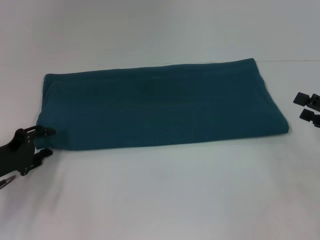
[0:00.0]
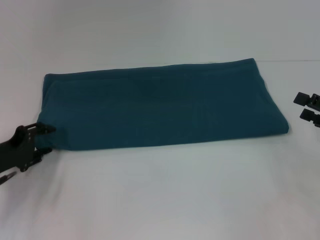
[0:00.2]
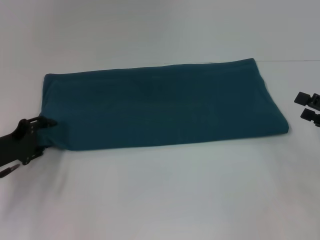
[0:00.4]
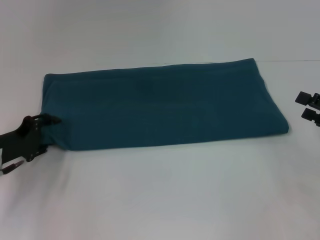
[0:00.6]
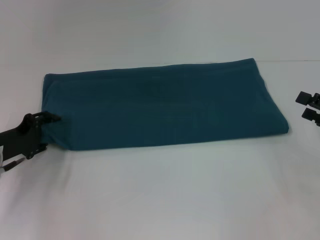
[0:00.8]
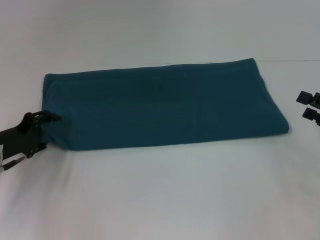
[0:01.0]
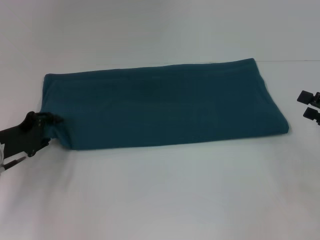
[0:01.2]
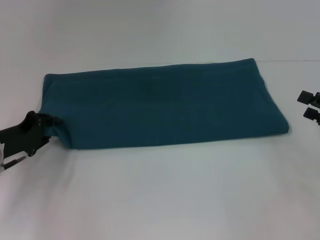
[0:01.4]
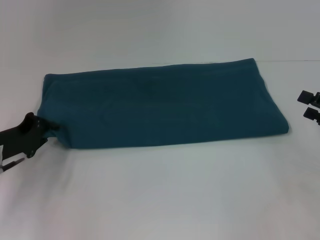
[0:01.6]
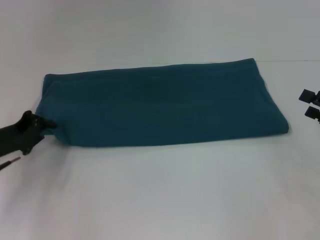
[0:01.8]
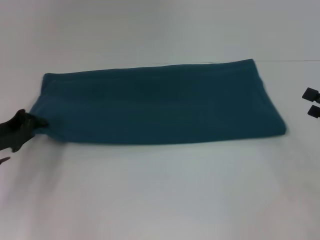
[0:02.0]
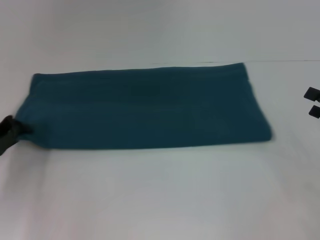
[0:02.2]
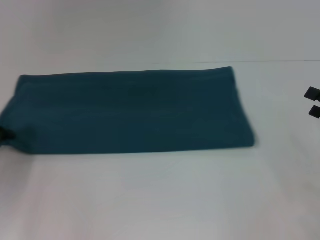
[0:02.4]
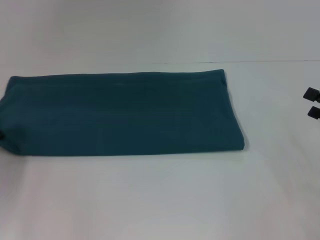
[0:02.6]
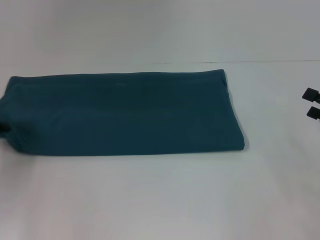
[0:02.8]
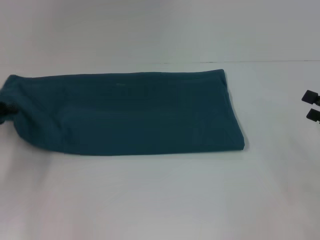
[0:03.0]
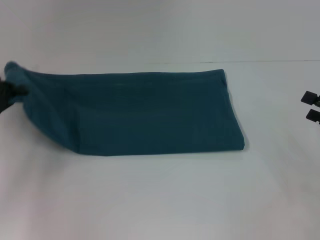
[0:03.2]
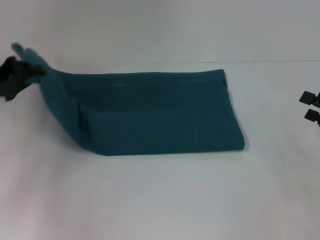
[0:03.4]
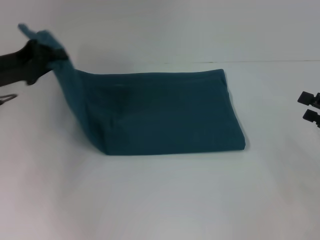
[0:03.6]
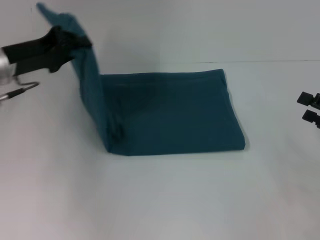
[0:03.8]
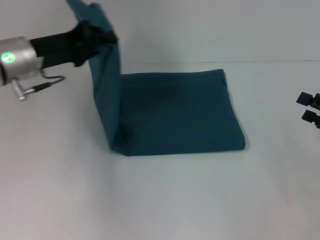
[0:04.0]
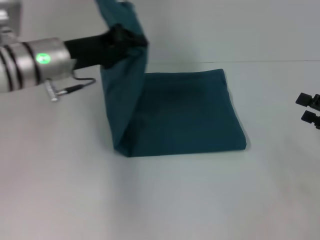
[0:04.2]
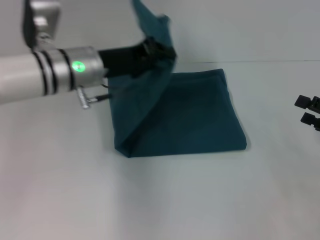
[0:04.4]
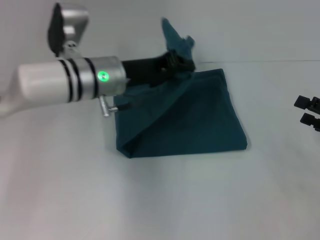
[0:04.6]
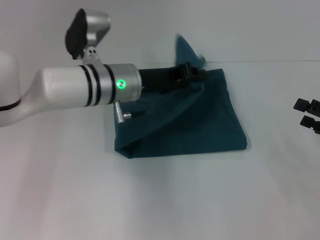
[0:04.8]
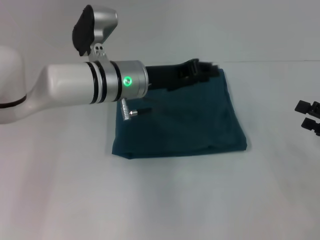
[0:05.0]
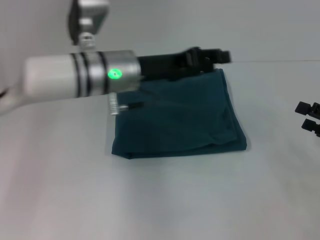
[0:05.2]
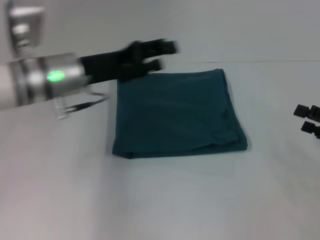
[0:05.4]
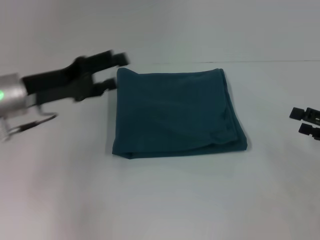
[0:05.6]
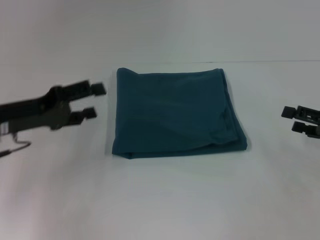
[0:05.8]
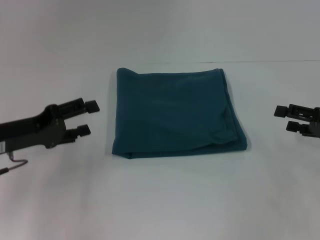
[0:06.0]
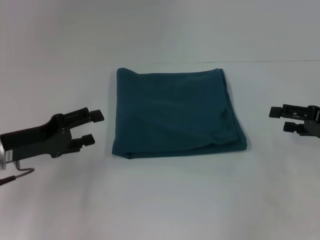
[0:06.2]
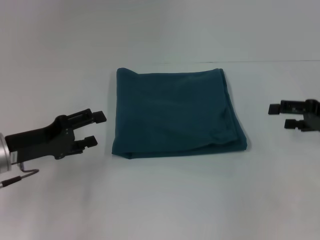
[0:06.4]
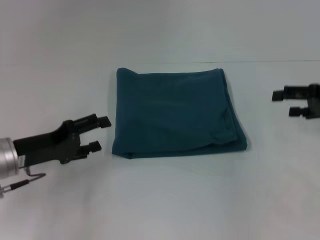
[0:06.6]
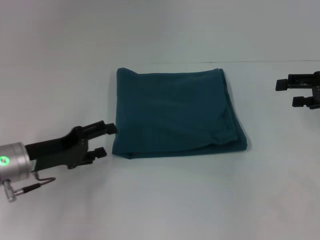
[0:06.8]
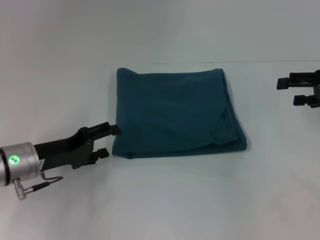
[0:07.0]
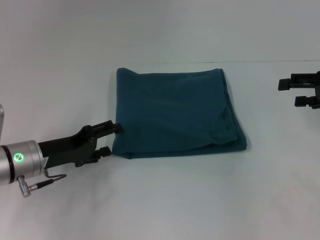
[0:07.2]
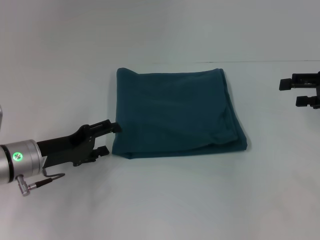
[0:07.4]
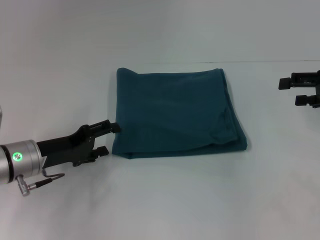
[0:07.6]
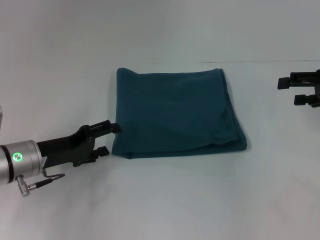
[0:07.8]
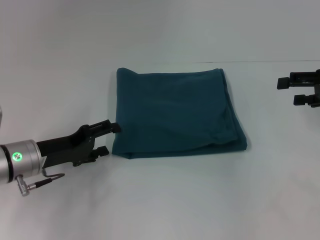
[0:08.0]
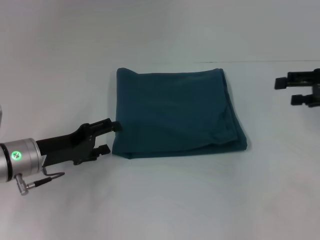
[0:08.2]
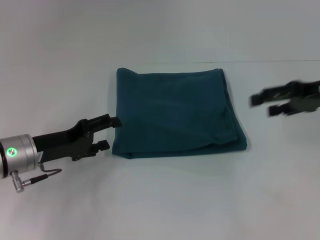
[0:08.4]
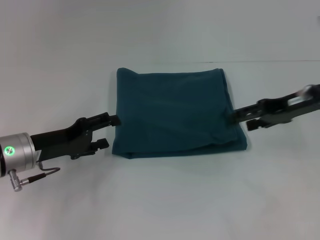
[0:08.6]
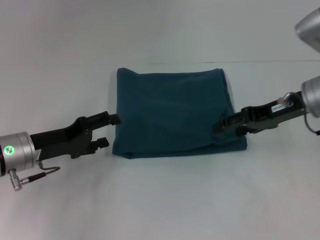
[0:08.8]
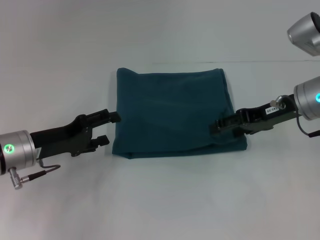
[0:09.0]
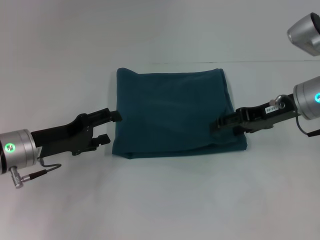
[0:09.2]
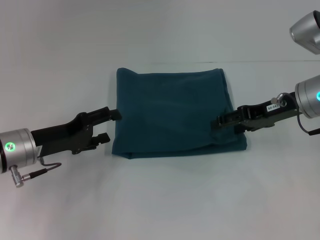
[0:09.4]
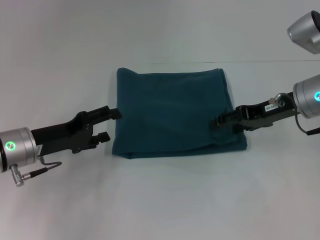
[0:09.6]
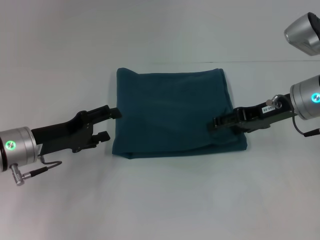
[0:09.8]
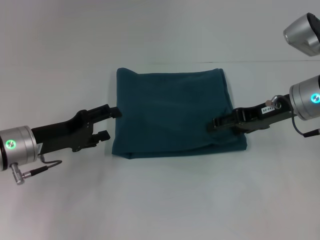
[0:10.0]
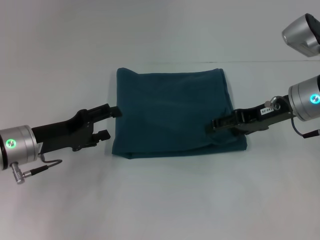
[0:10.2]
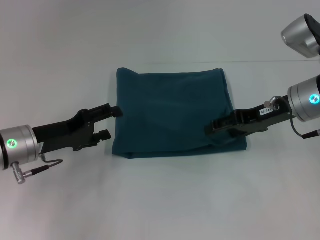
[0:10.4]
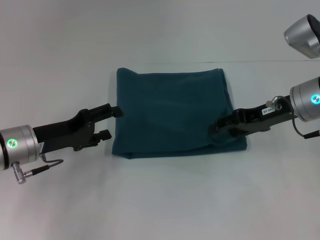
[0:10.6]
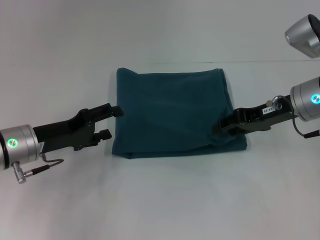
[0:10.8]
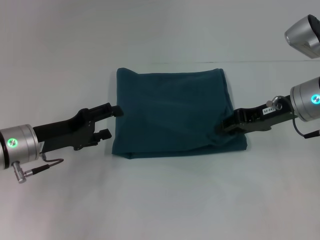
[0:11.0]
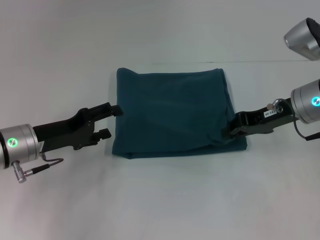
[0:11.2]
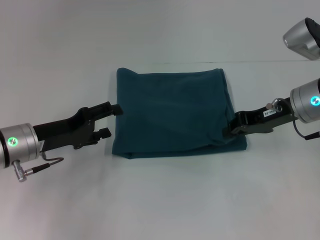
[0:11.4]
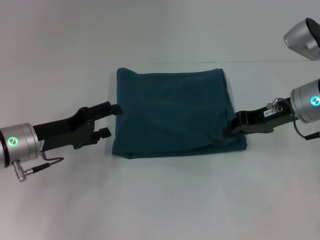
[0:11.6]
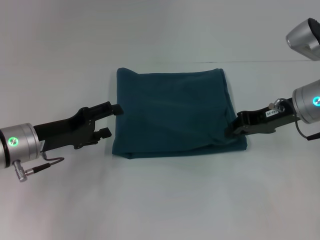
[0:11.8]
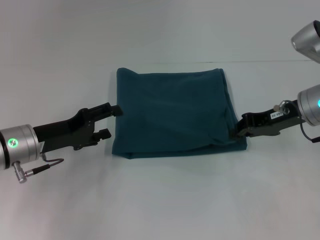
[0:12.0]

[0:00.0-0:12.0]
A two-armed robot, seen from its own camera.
Step, 0:00.0 to 0:05.0: Fold the clothes to the left.
0:00.0 to 0:01.6: The left gripper closes its fingers.
0:01.6 to 0:03.0: The left gripper moves to the left, approximately 5 cm.
0:03.0 to 0:04.4: The left gripper heads to the right, covering some 20 cm.
0:04.4 to 0:06.0: The left gripper goes some 15 cm to the left and backward, and opens up.
0:06.0 to 0:07.6: The left gripper travels downward by approximately 5 cm, while the right gripper is displaced upward and forward by some 10 cm.
0:07.6 to 0:09.0: The right gripper is displaced to the left by approximately 10 cm.
0:09.0 to 0:10.4: Neither gripper changes place.
0:10.4 to 0:12.0: The right gripper closes up.

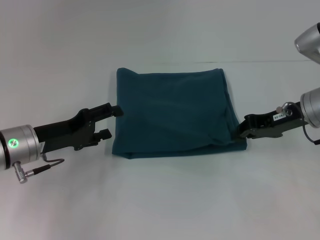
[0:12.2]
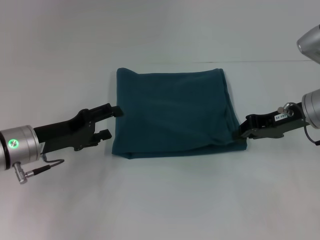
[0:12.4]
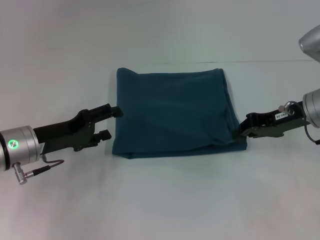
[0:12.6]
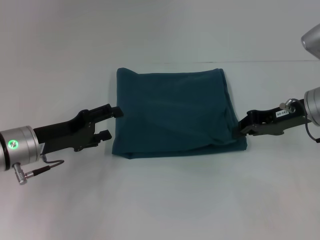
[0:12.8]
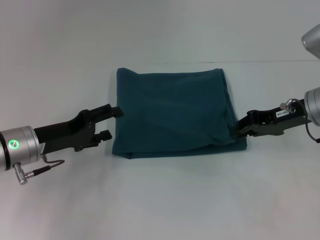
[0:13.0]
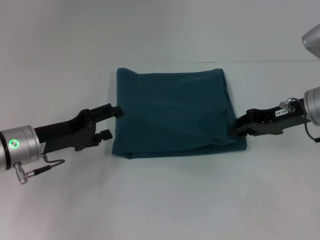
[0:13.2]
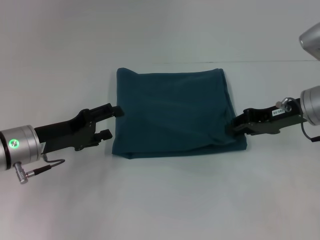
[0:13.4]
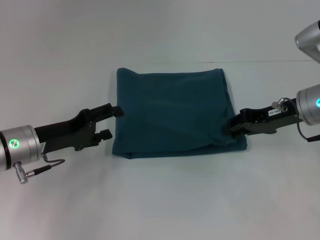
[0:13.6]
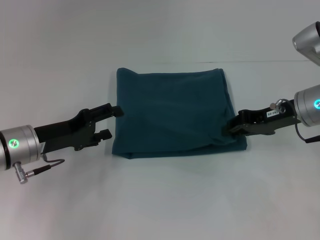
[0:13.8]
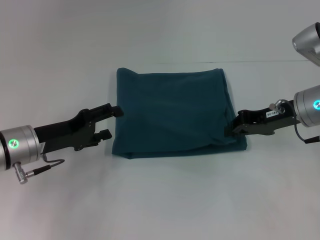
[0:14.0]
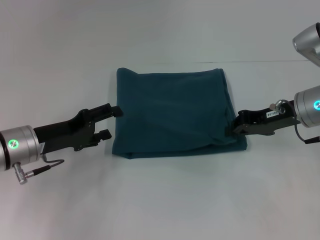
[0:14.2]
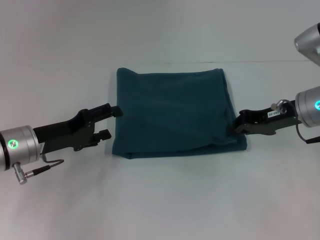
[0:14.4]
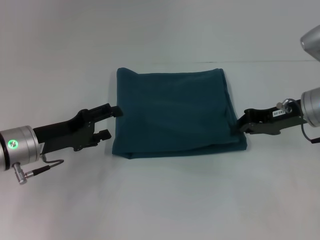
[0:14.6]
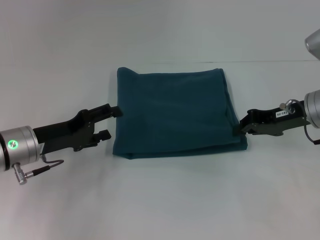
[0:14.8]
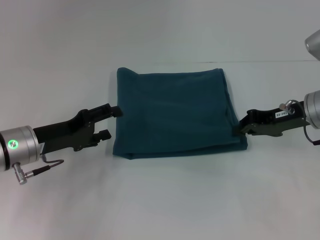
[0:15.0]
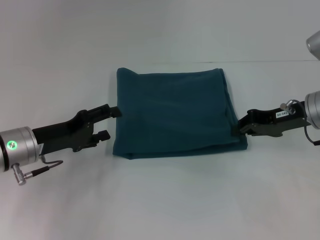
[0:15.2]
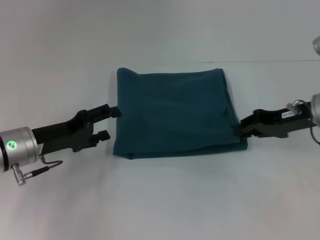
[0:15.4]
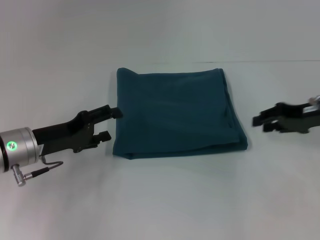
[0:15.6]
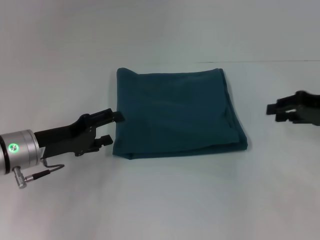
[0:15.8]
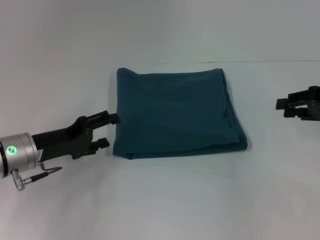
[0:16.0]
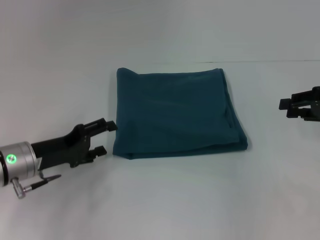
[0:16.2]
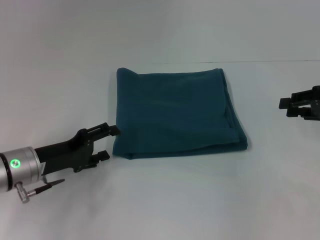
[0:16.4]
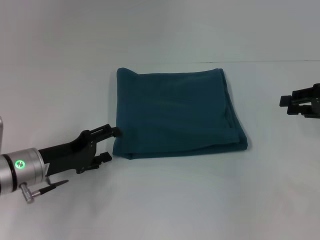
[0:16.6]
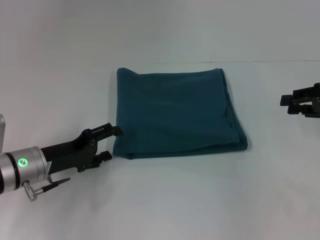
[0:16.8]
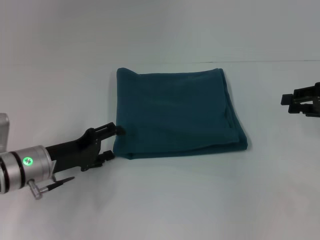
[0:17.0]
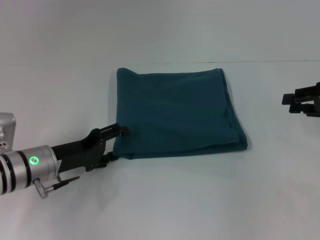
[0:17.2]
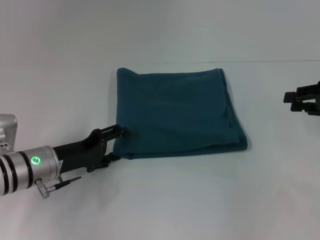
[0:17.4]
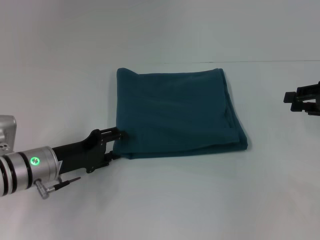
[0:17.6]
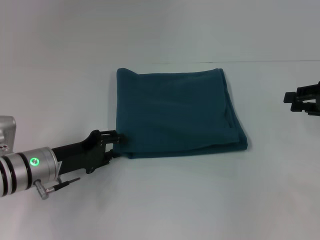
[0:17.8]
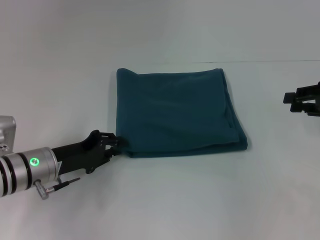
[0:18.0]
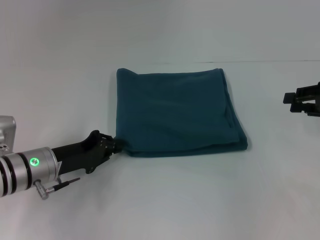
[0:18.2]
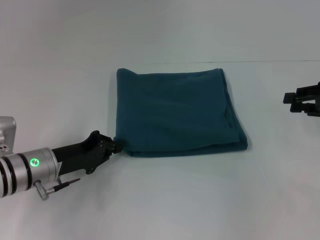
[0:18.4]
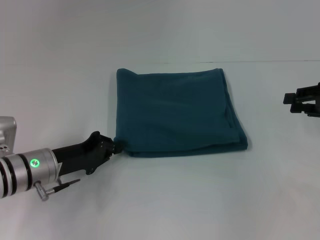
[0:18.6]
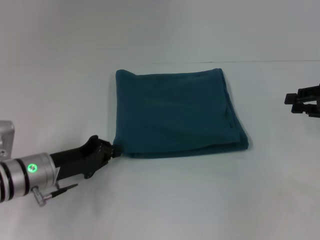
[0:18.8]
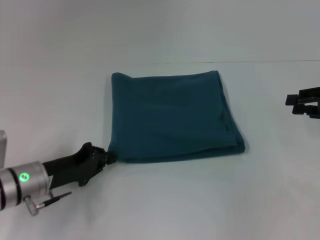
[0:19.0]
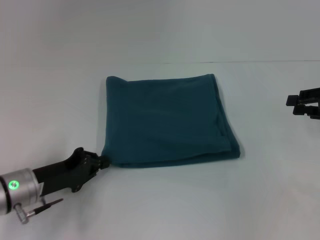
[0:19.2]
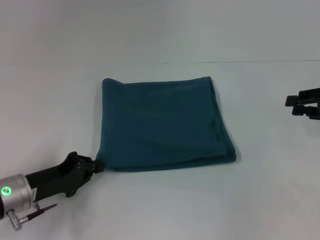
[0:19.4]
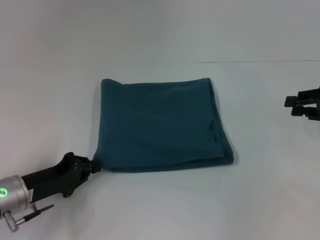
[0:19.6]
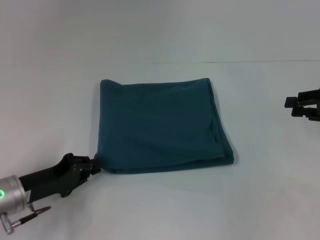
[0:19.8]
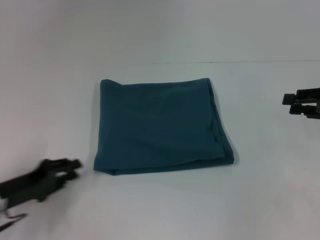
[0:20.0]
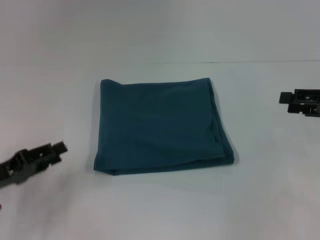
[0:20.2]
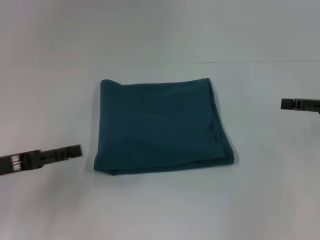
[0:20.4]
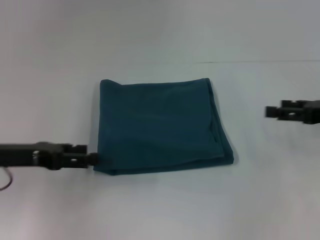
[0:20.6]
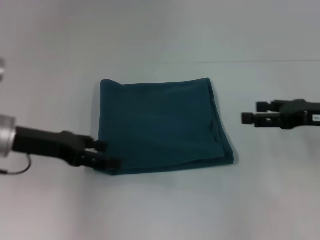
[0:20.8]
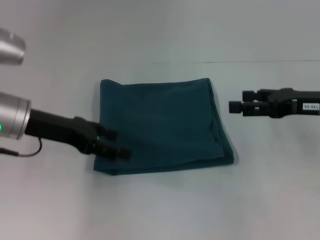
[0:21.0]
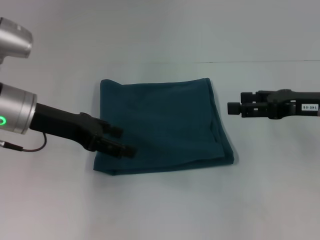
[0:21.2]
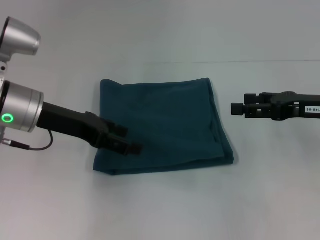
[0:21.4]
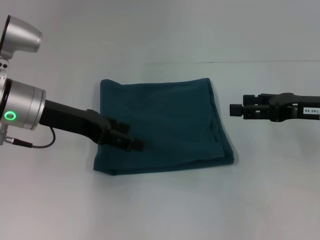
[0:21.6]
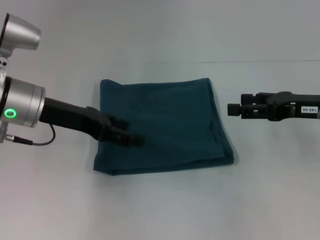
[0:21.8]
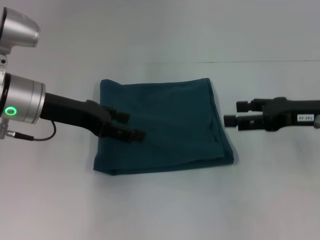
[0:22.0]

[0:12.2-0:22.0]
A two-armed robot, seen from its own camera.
0:12.2 to 0:13.6: Neither gripper changes place.
0:13.6 to 0:15.0: Neither gripper changes place.
0:15.0 to 0:16.4: The right gripper moves to the right, about 10 cm, and opens up.
0:16.4 to 0:17.8: There are only small adjustments of the grippers.
0:17.8 to 0:19.2: The left gripper closes its fingers.
0:19.2 to 0:20.6: The right gripper opens its fingers; the left gripper moves upward, about 10 cm, and opens up.
0:20.6 to 0:22.0: The left gripper is displaced to the right, forward and upward by about 10 cm; the right gripper heads to the left, covering some 5 cm.
